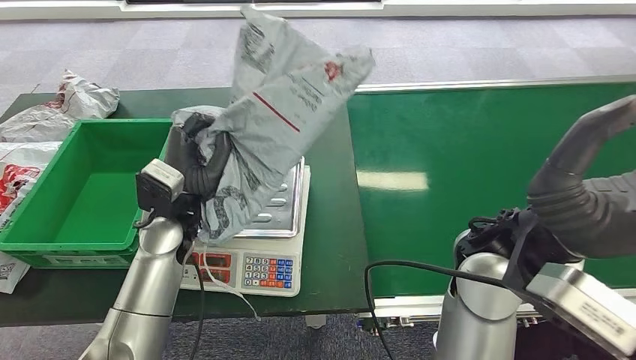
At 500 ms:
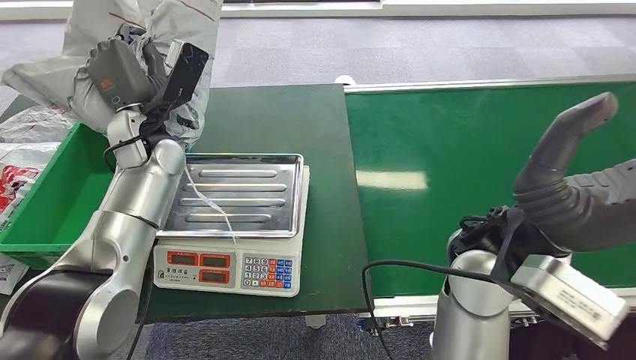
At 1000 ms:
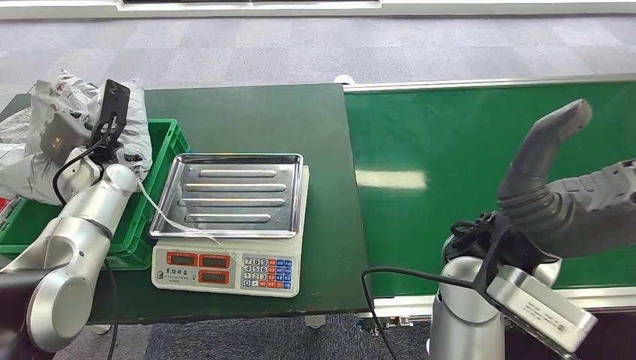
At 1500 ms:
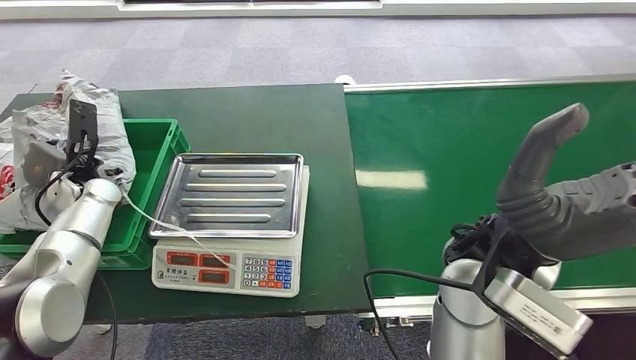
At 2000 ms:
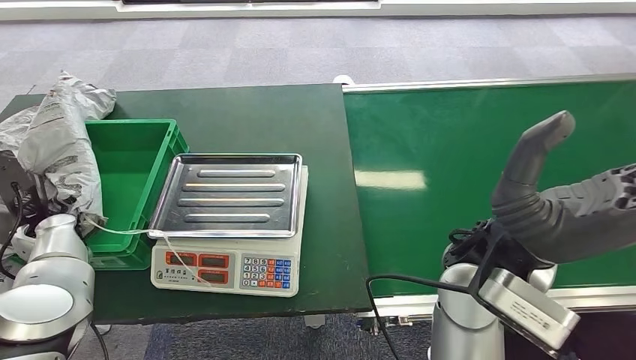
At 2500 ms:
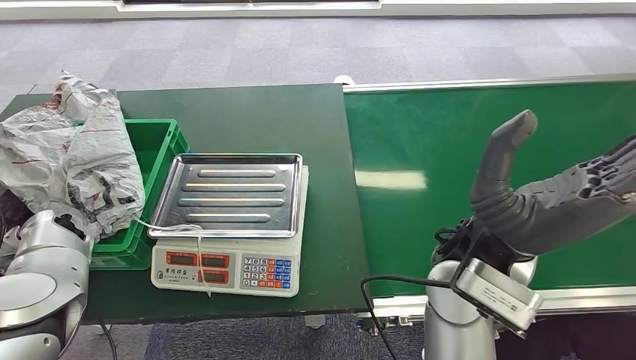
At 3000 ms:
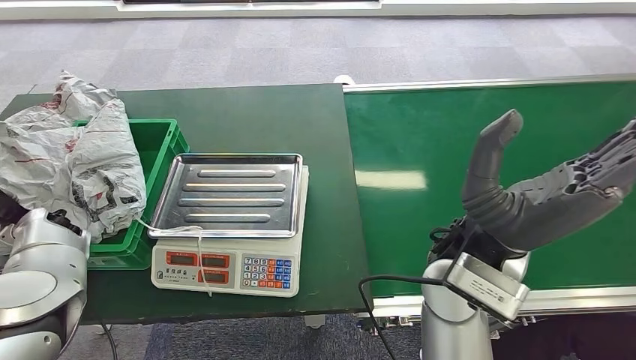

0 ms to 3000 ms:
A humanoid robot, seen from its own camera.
Step, 500 ms to 3000 ms: Place the package into the parcel locker.
1500 ms to 3000 ms: The left hand shifts some 5 cm to the left.
